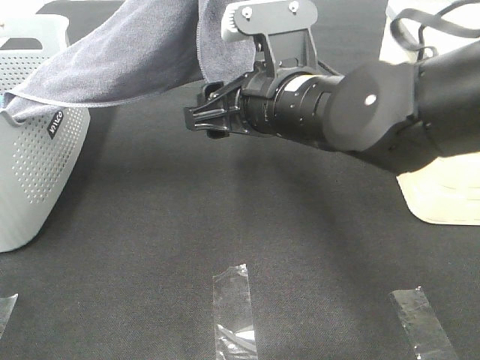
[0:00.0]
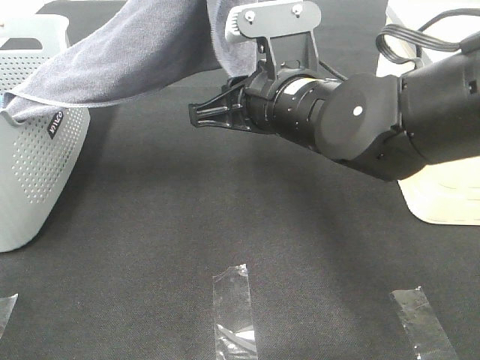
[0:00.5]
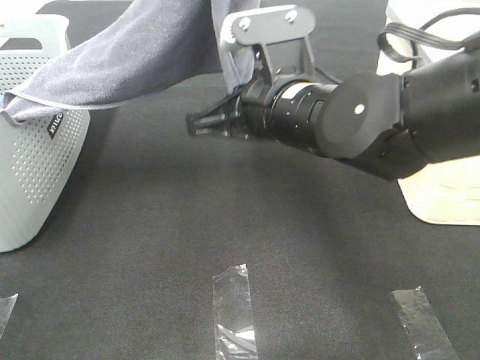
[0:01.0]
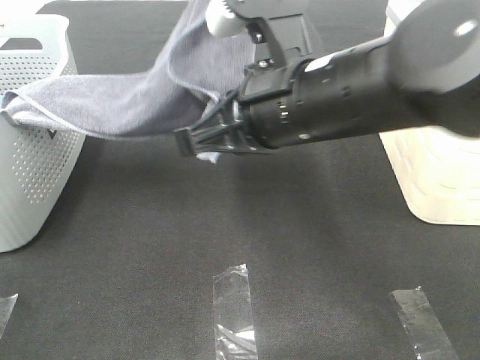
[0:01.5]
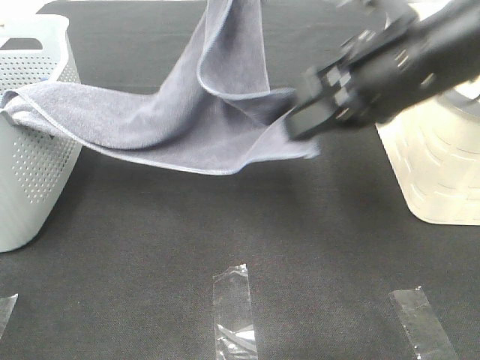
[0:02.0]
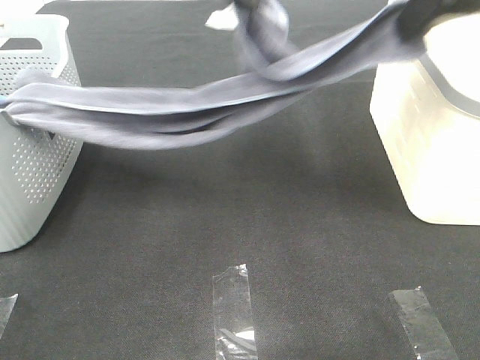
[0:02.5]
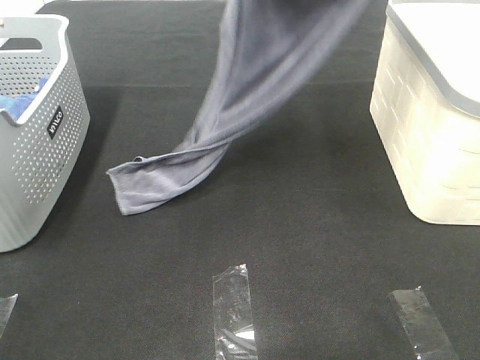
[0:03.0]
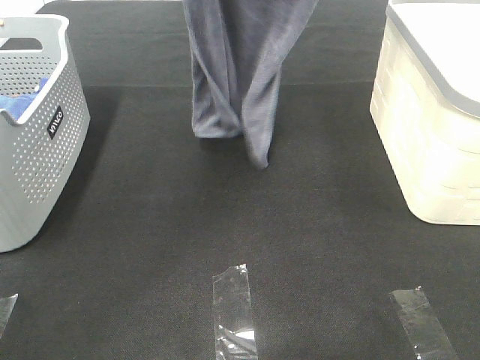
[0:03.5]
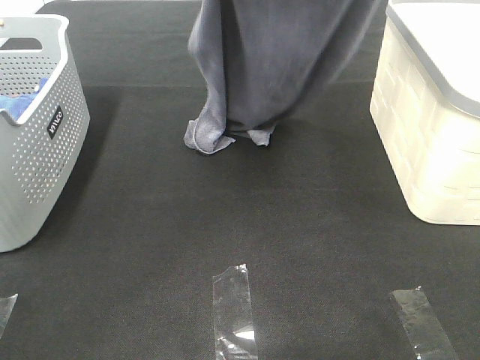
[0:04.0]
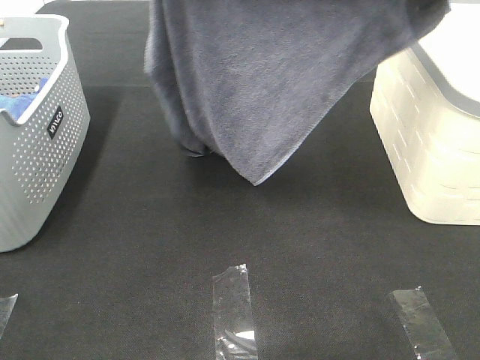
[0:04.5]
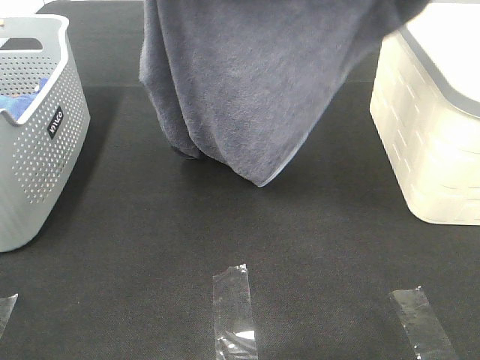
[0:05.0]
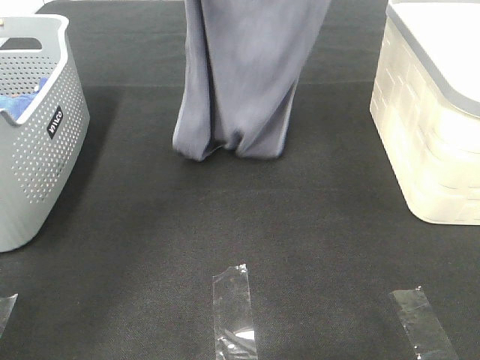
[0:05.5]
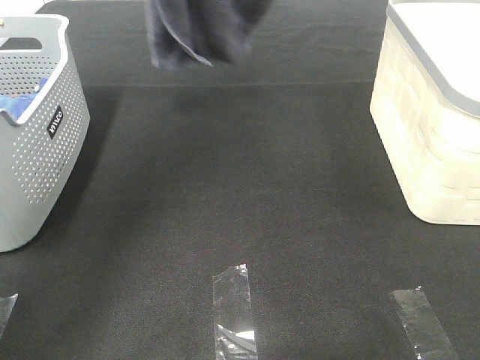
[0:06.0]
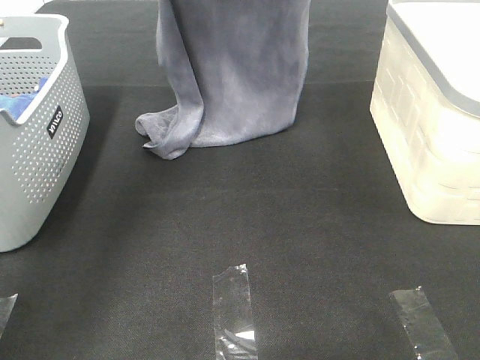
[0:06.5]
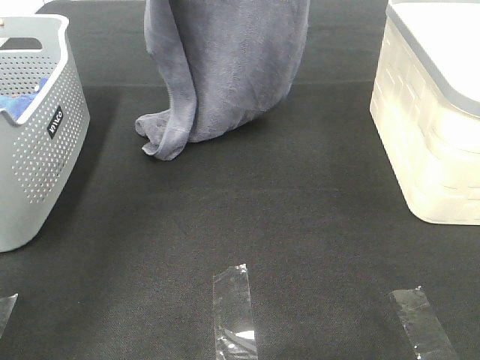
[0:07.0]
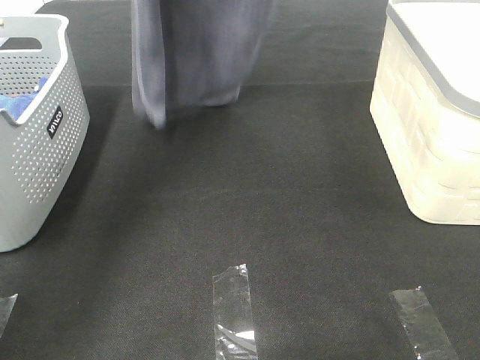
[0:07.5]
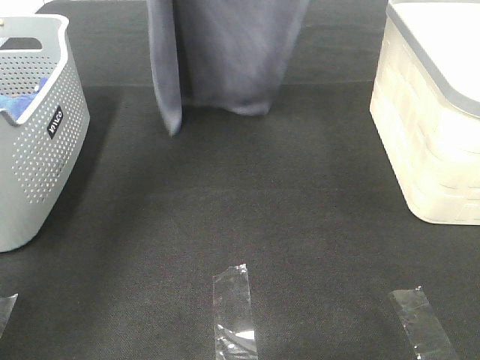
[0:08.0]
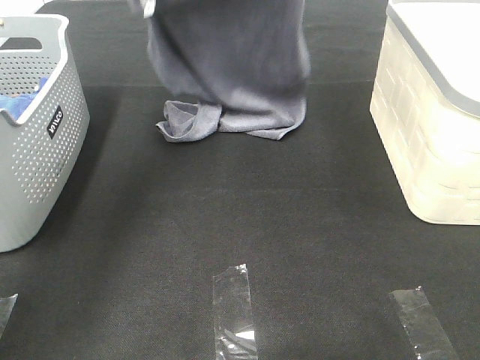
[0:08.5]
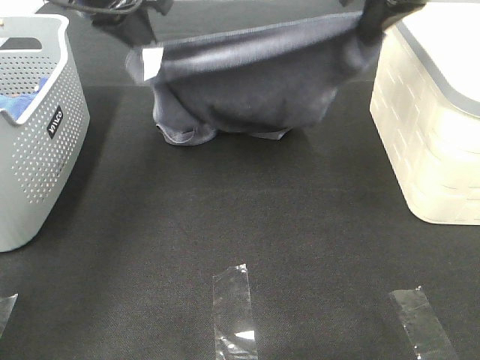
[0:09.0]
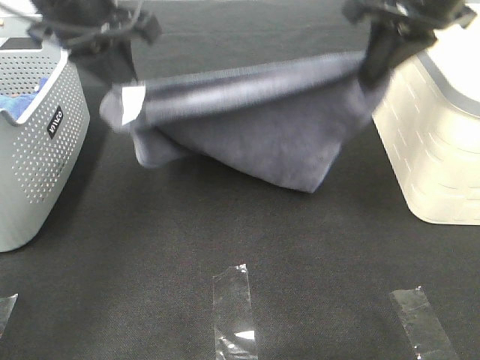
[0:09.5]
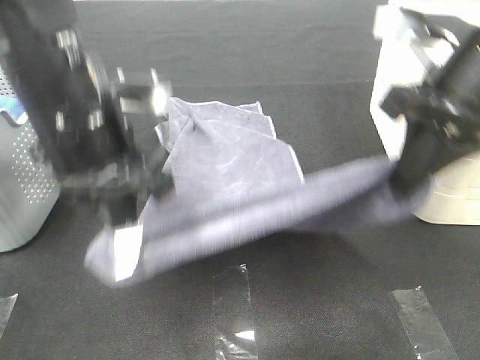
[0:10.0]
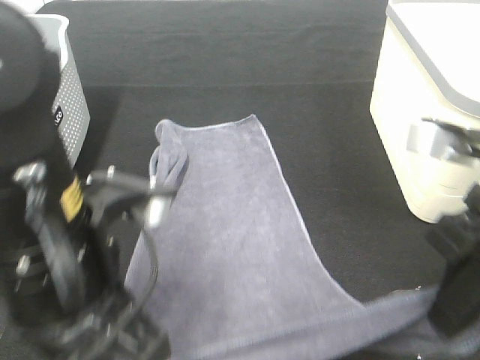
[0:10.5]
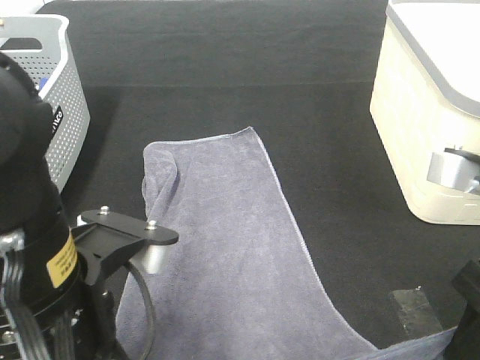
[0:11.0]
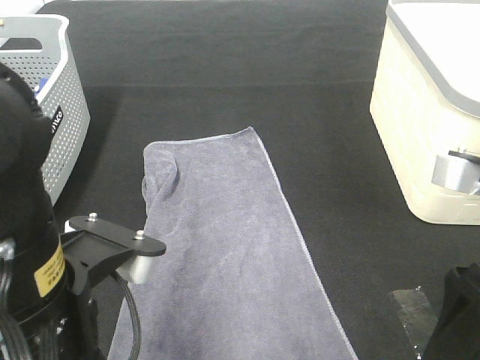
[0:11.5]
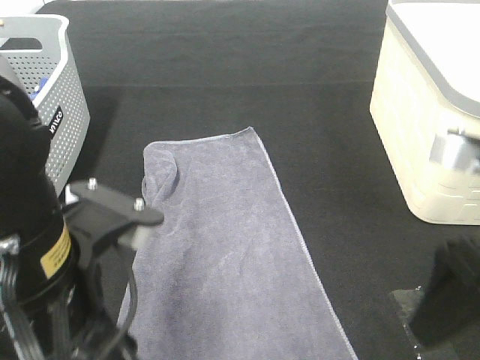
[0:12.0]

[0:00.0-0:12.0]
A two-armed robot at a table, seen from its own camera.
Task of the whole recording: Remove the towel and place it.
Step, 0:02.0 to 0:05.0: Left hand: spread the grey towel flat on the table.
Step, 0:02.0 to 0:05.0: Right hand: spread the grey towel flat on the table.
0:00.0 to 0:02.0: The right gripper is displaced to the right and upward by roughly 10 cm, and closes up.
0:02.0 to 0:04.0: The left gripper goes up and down, about 10 cm each way, reversing 2 times; the right gripper heads upward, forward and to the right, covering roughly 20 cm.
0:04.0 to 0:06.0: The left gripper heads forward, to the left and upward, covering approximately 10 cm. The right gripper shifts approximately 10 cm forward.
0:06.0 to 0:08.0: The left gripper heads downward, covering approximately 5 cm.
0:08.0 to 0:10.0: The grippers both shift backward and downward by roughly 25 cm.
0:10.0 to 0:12.0: The grippers both shift backward by some 10 cm. The left gripper opens, while the right gripper opens.

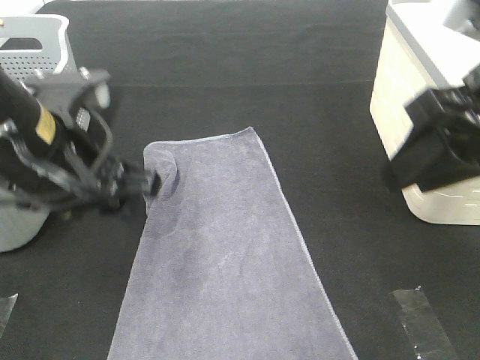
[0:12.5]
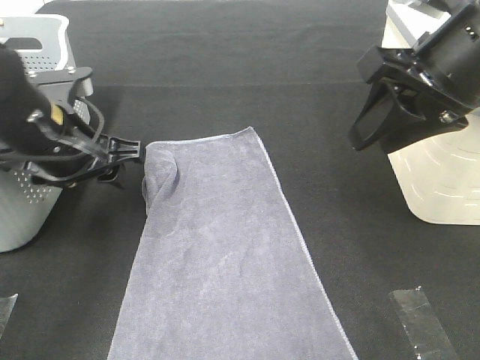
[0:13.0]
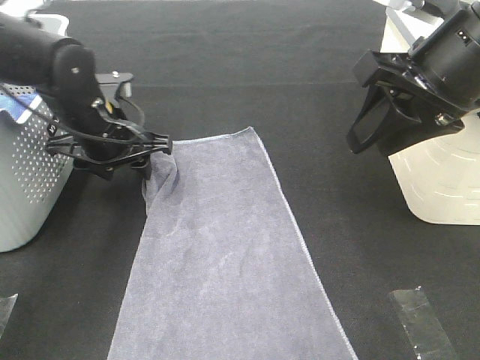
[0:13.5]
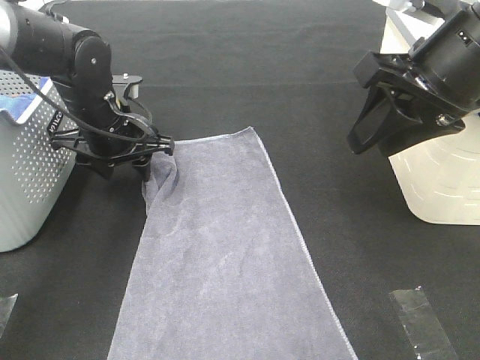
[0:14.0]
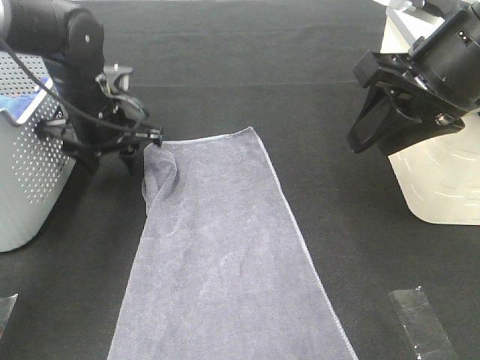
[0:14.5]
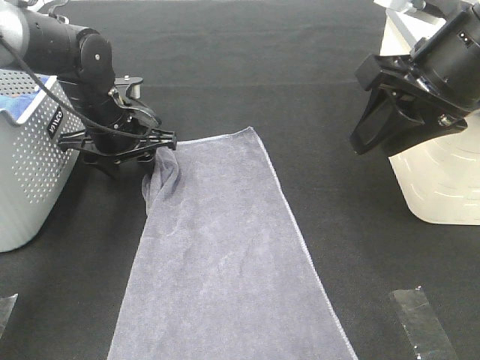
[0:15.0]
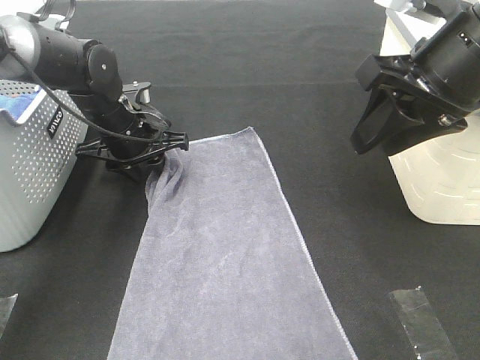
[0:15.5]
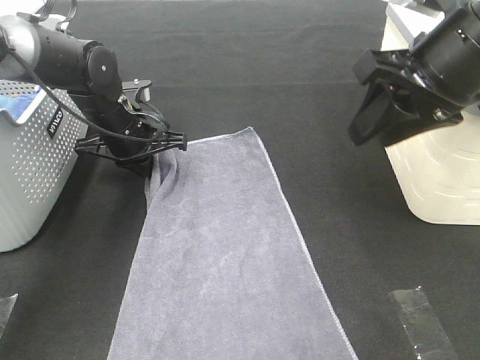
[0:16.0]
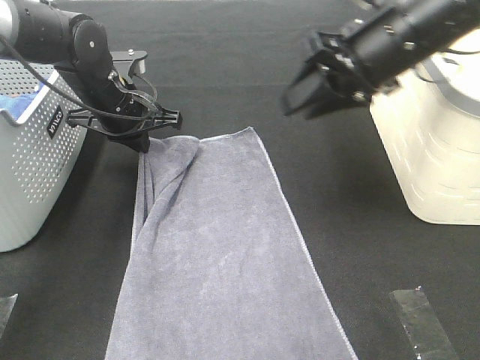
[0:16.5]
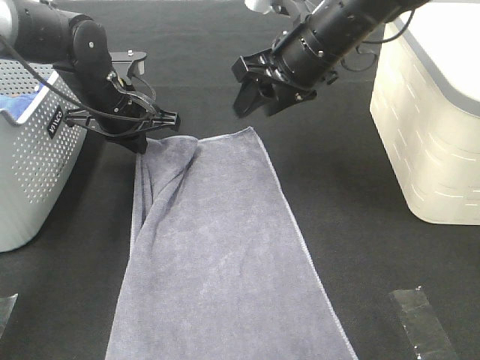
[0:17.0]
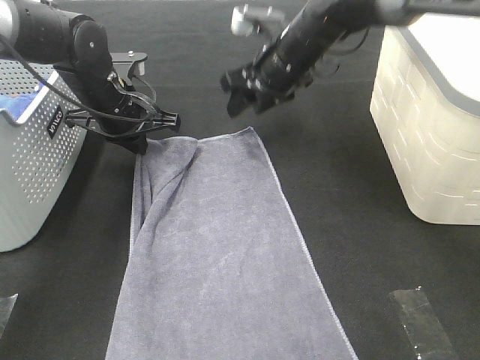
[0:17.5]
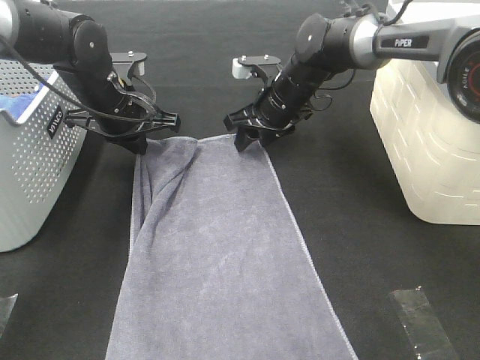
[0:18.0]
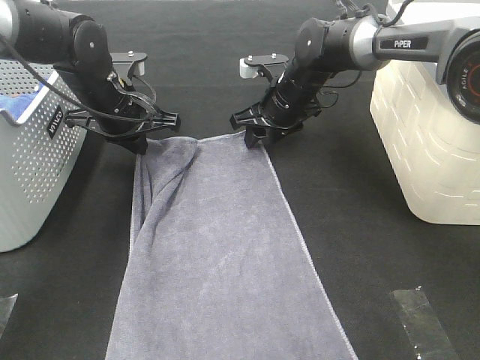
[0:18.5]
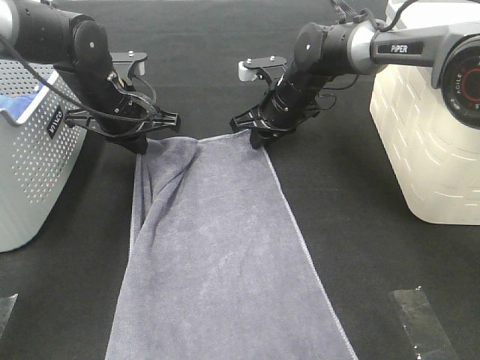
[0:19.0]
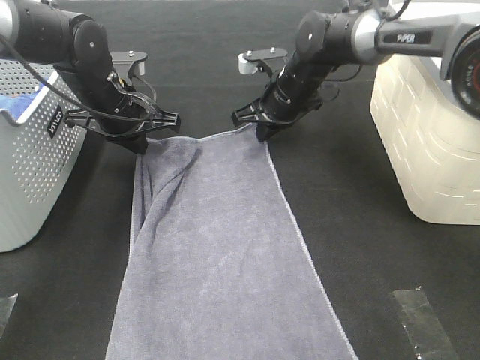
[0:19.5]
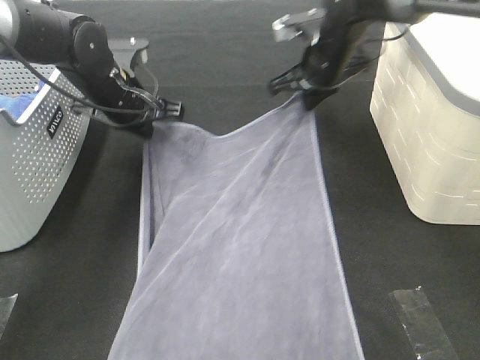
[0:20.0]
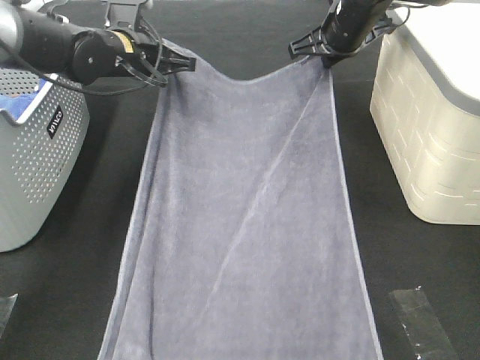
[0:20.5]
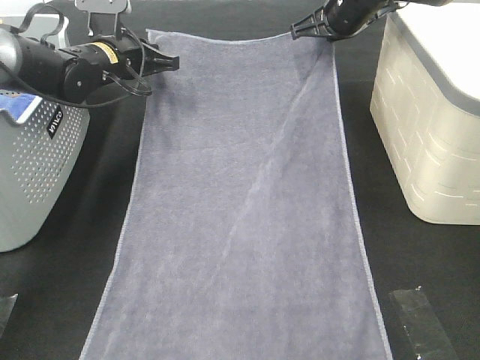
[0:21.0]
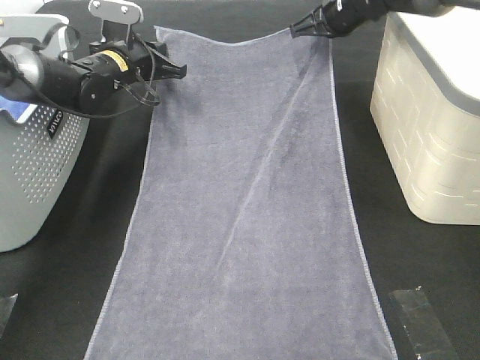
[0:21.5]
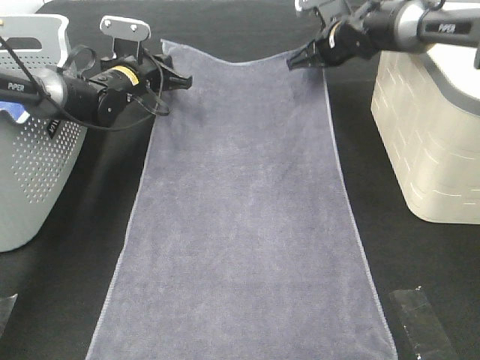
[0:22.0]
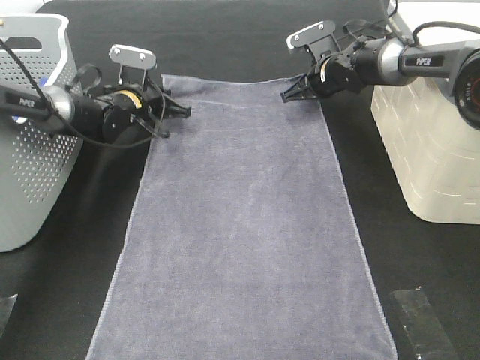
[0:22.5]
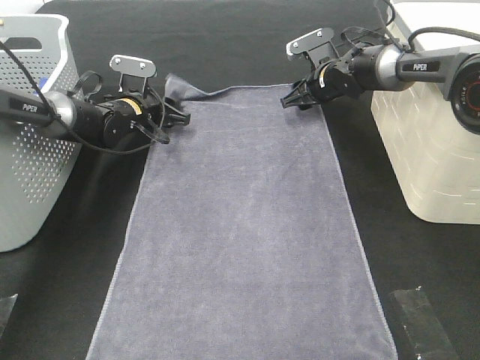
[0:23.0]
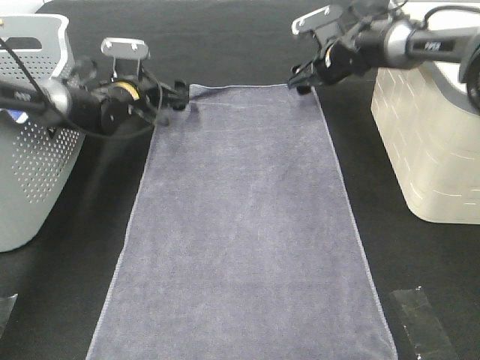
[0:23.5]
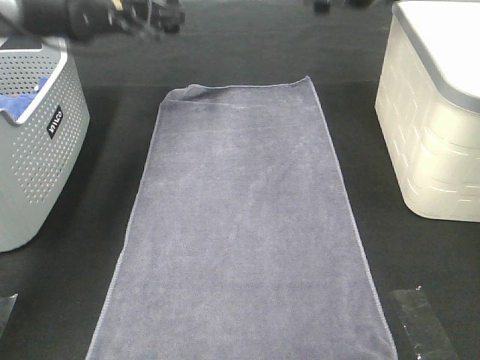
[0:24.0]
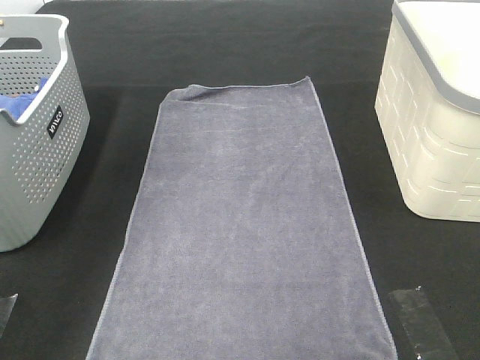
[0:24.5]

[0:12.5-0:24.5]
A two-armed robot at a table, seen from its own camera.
Task of the whole recording: Remove the towel and place it.
Step, 0:12.5 to 0:14.5: Left hand:adjust the gray towel.
Step, 0:12.5 to 0:14.5: Right hand:adjust the gray towel.
0:12.5 to 0:14.5: The right gripper is displaced forward by some 5 cm, while the left gripper goes some 20 cm forward and downward.
0:14.5 to 0:16.5: The left gripper closes up; the right gripper goes some 5 cm forward.
0:16.5 to 0:18.5: The right gripper is displaced downward, forward and to the left by approximately 20 cm.
0:18.5 to 0:20.5: The right gripper shifts about 15 cm upward and to the right, and closes up, while the left gripper moves forward, roughly 5 cm.
0:20.5 to 0:22.5: The left gripper goes some 15 cm downward and forward, while the right gripper is displaced downward by roughly 10 cm.
0:22.5 to 0:24.5: The grippers both shift upward and backward by some 35 cm. The right gripper opens; the left gripper opens its fingers.

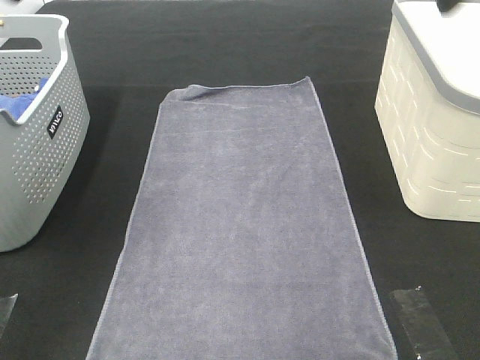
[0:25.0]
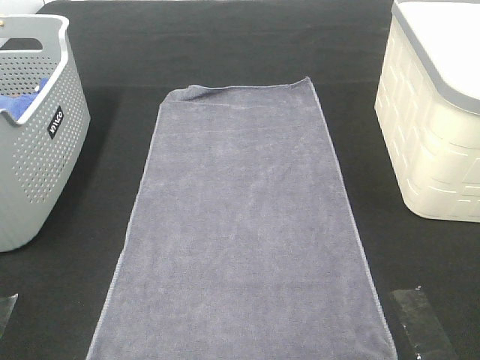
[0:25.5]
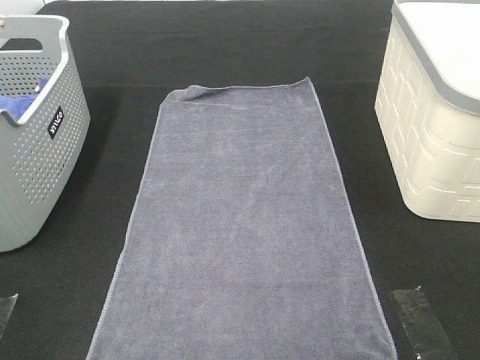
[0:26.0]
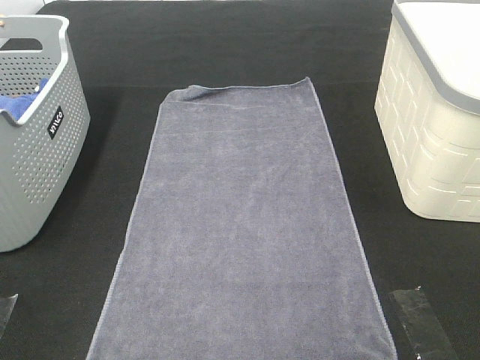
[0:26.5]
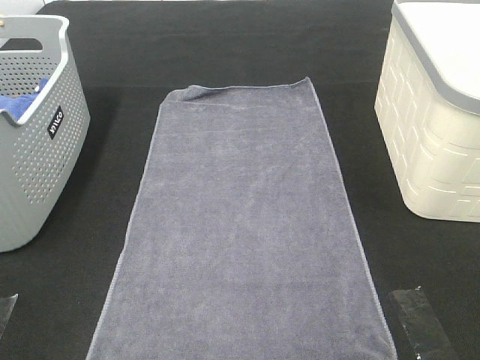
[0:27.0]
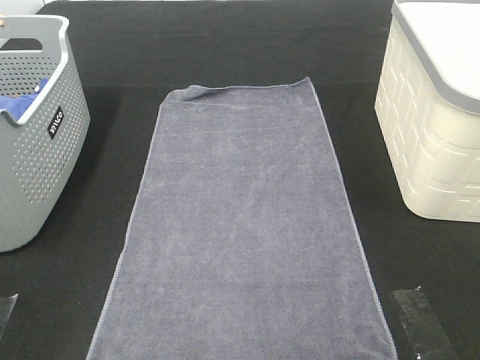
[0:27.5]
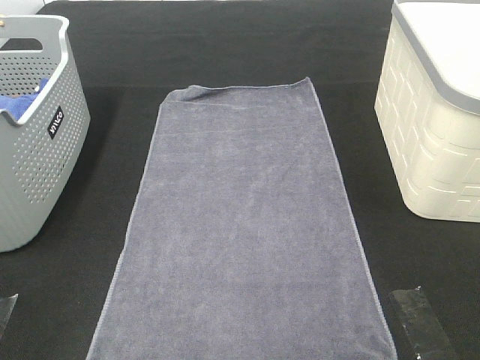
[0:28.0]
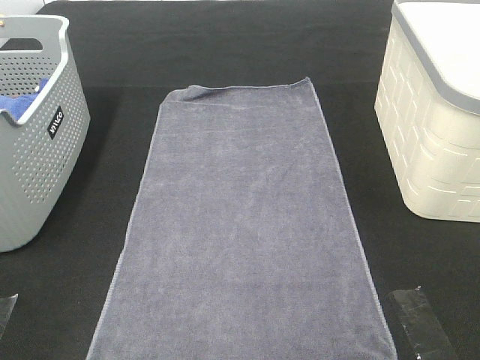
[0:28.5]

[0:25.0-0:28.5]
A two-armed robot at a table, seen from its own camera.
Task of the whole recording: Remove the towel and place it.
0:25.0 to 0:27.0: The two grippers go approximately 30 cm backward and downward.
